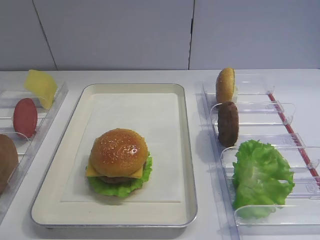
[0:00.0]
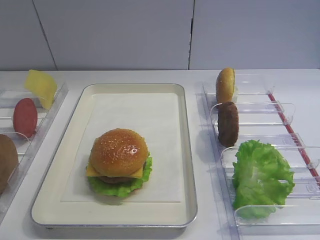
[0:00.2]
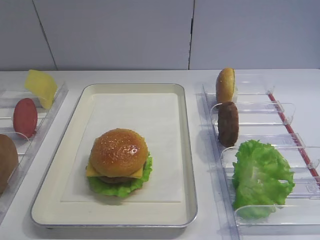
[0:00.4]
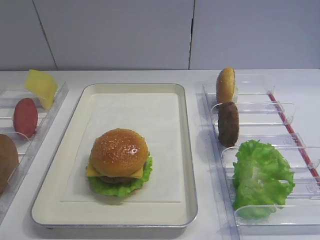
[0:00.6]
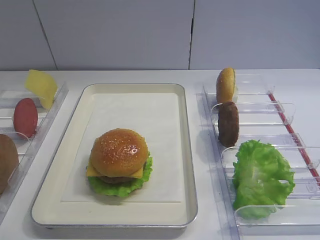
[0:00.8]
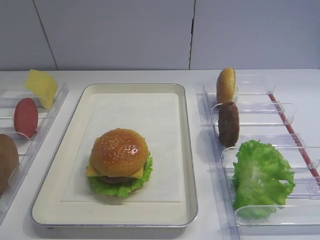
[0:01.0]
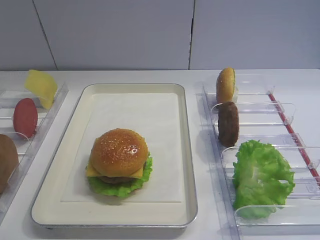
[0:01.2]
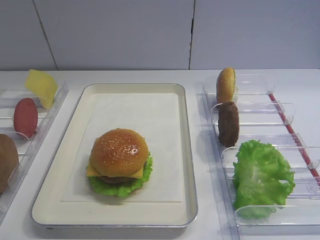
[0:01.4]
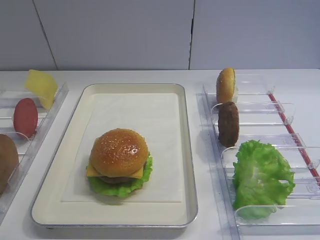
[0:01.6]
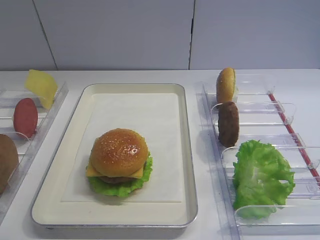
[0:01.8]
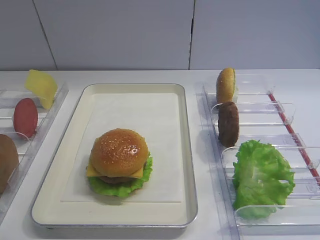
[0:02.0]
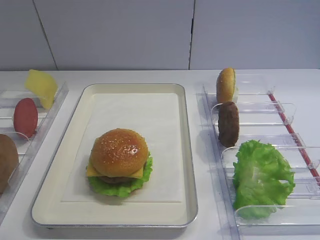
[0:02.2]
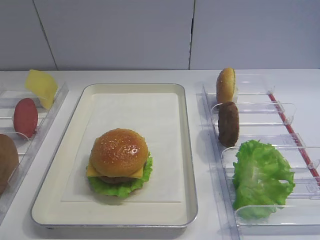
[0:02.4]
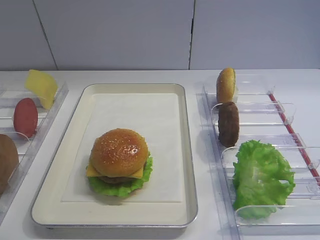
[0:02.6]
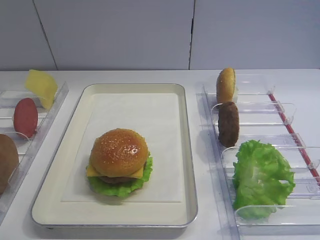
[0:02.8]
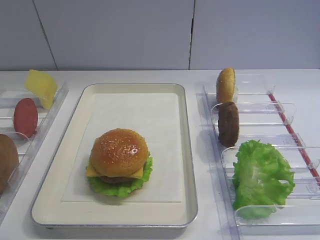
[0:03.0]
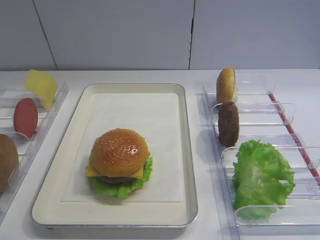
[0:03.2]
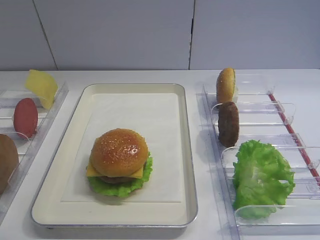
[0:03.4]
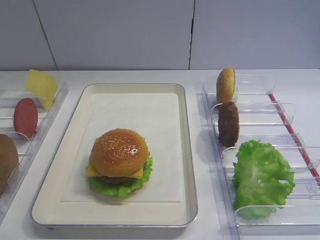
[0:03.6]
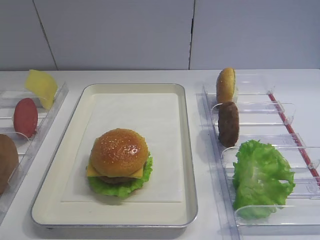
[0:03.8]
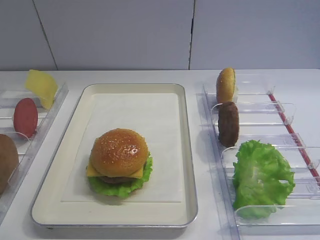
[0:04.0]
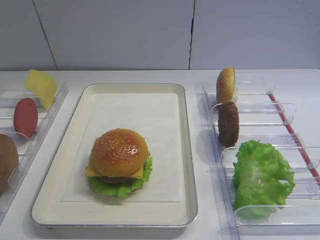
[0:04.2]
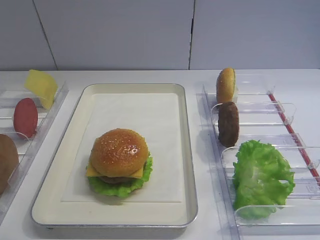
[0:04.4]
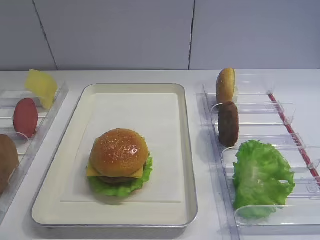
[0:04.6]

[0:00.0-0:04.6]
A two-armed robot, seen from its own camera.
0:01.6 to 0:04.6: Neither gripper changes place.
